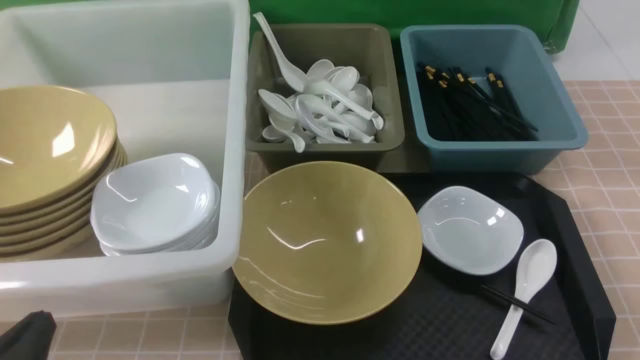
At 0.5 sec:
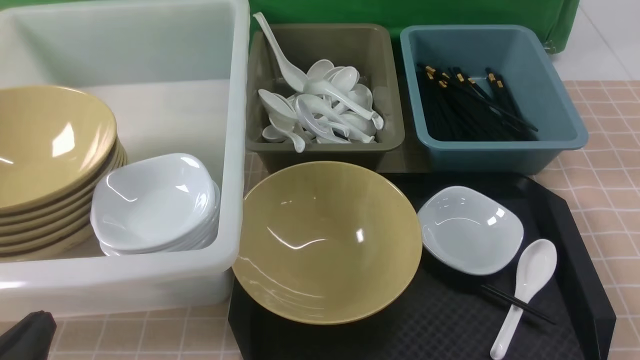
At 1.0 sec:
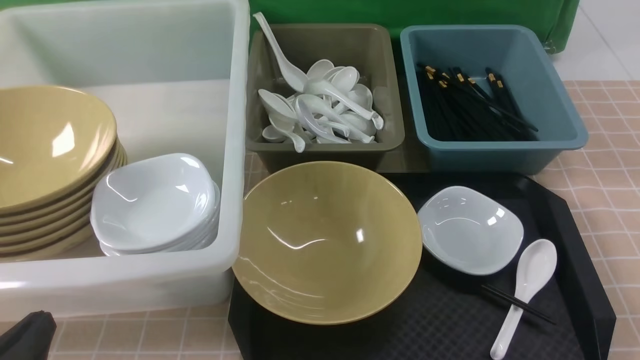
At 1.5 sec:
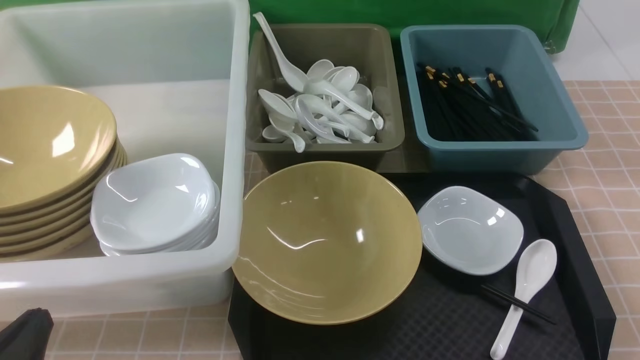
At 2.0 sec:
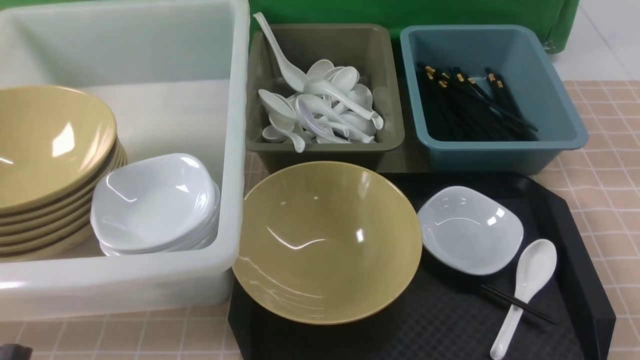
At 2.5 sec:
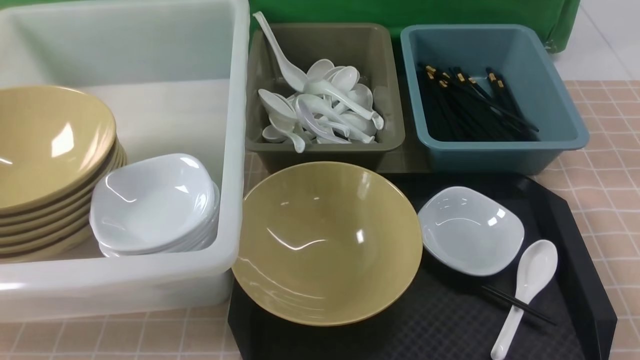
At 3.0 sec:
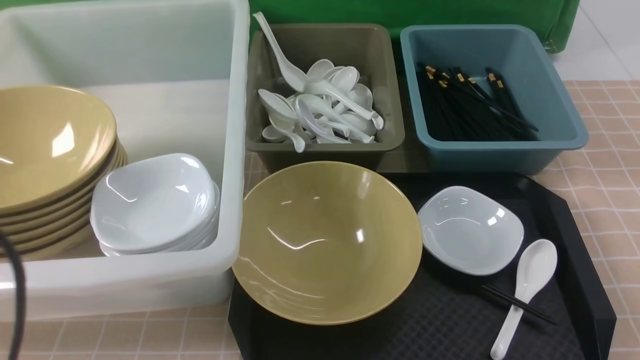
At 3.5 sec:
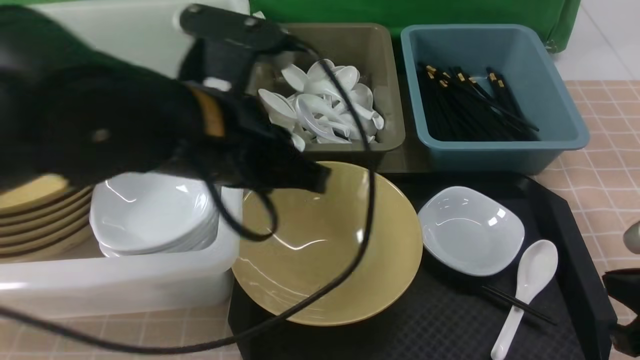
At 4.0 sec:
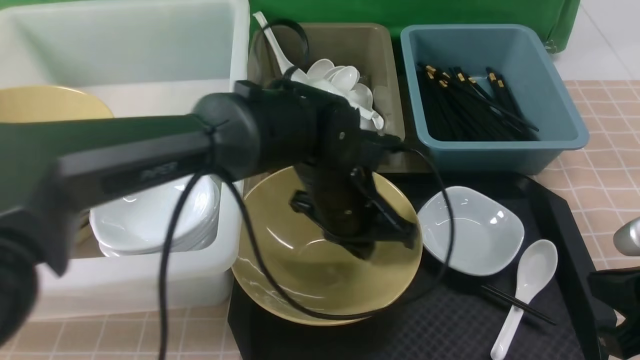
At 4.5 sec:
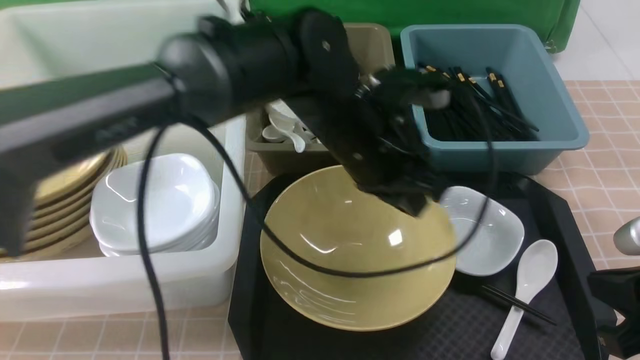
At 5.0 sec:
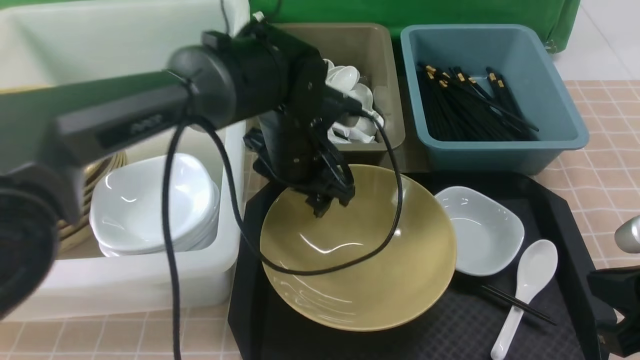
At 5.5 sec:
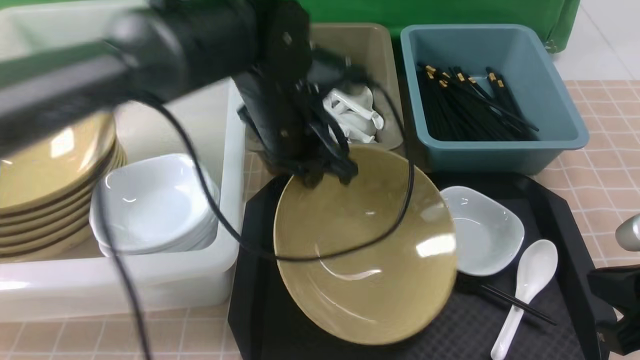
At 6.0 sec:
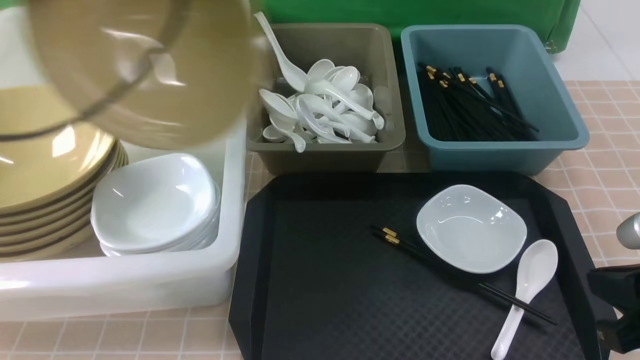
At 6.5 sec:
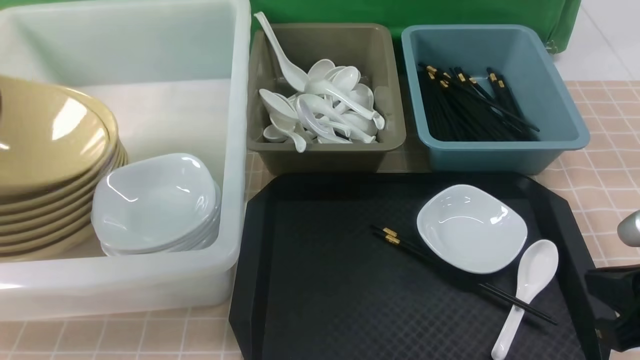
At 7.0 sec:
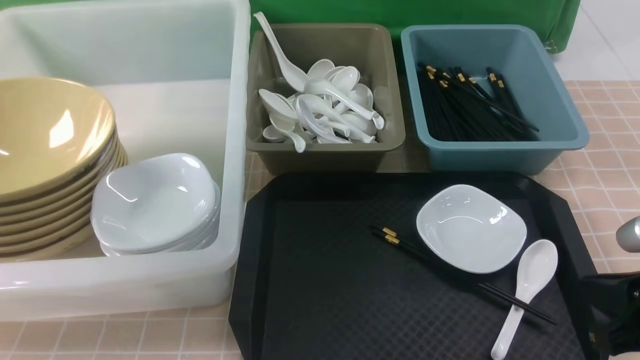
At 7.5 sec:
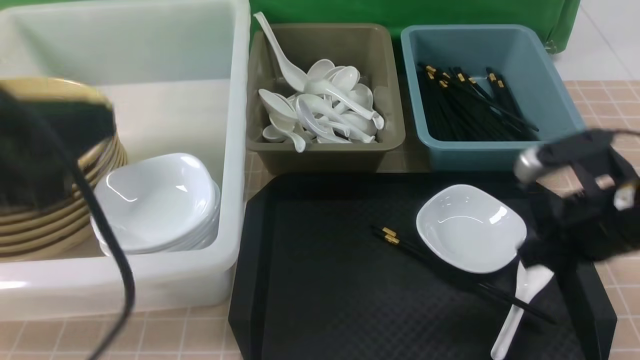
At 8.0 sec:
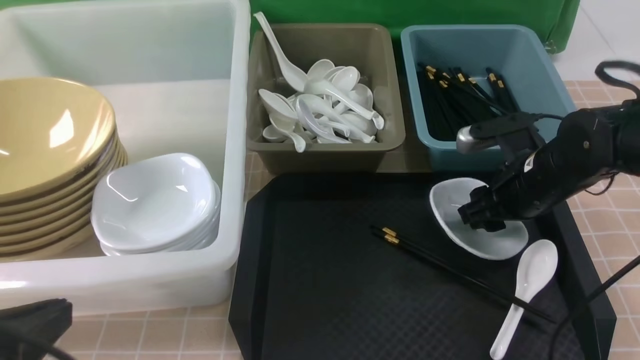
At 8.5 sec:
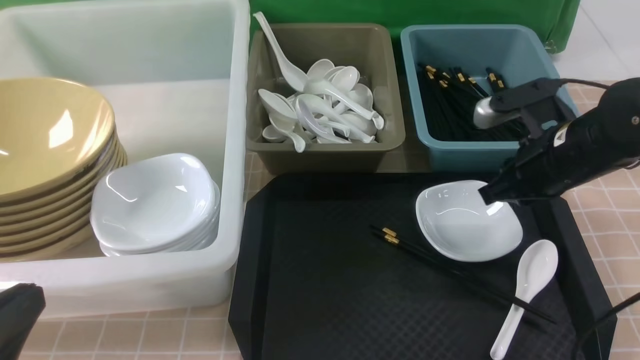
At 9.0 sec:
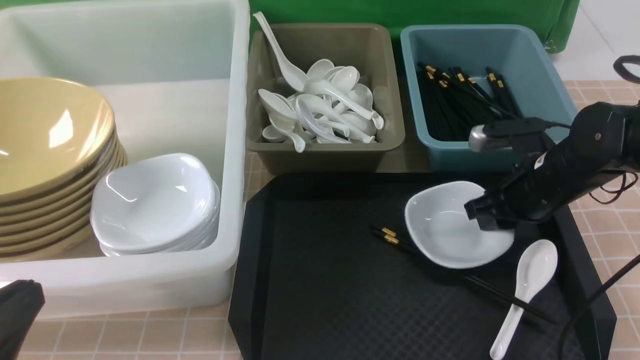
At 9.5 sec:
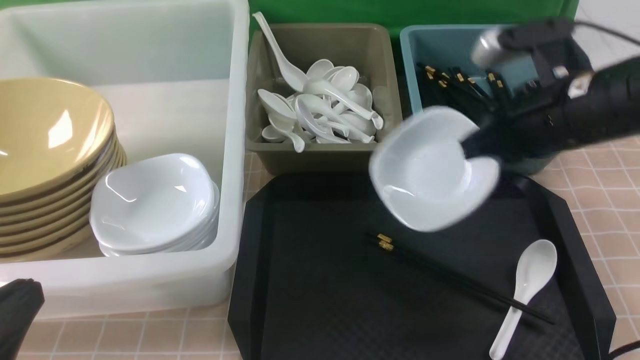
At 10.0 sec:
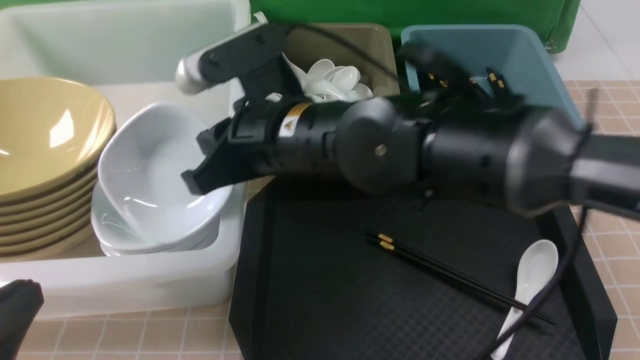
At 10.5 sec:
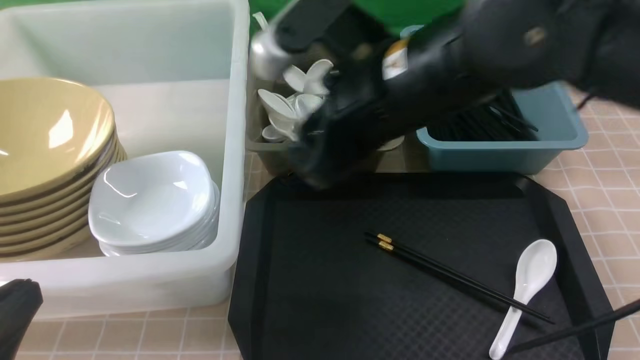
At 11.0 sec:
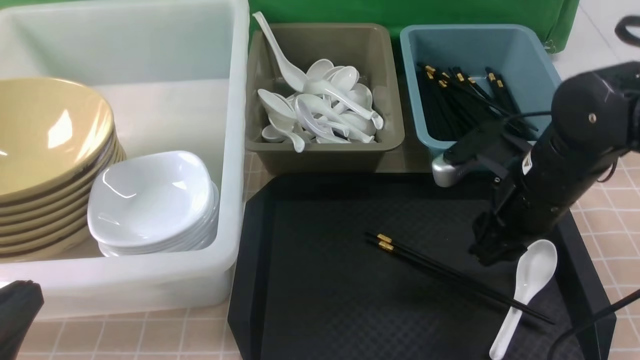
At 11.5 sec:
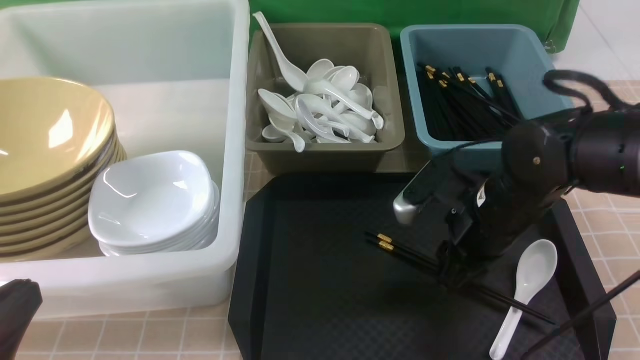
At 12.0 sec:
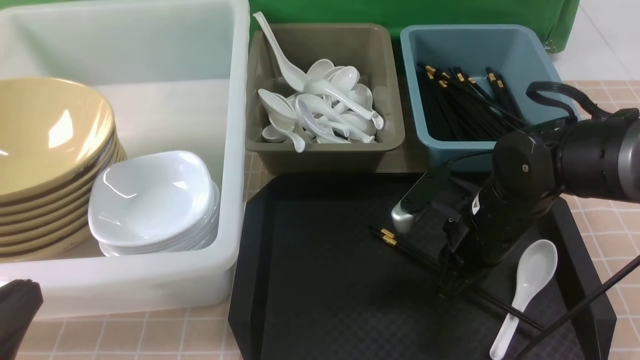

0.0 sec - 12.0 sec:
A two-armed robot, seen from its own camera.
Task of the whole recording: on brown table put chopsticks spoon bowls plates into blue grey white boxes.
Step, 0.0 sec - 5.0 sec: use the left arm to grab the yellow noodle bowl on the left.
Step, 5.5 sec - 6.5 sec: use the left arm to put the noodle bowl into the large storage box on the left.
Step, 7.0 sec - 9.0 sec: use the right arm to grab the plate.
Step, 9.5 sec - 10.0 sec: use the right arm to put the plate into the large storage box on the left.
2.0 sec - 4.0 sec: The left gripper travels to the right and forward by roughly 35 cm, while the right gripper goes some 10 cm forward, and closes its fingers.
4.0 sec - 6.0 sec: The left gripper heads to the left and upward, covering approximately 30 cm, and opens, then closes once more.
6.0 sec - 8.0 sec: The left gripper moves backward and downward, about 25 cm, and opens, then closes once more, while the right gripper moves forward, some 20 cm, and opens its fingers.
8.0 sec - 10.0 sec: The right gripper goes about 25 cm to the left and upward, and closes up.
10.0 sec - 12.0 sec: The right gripper goes about 20 cm to the right and downward, and opens and closes again.

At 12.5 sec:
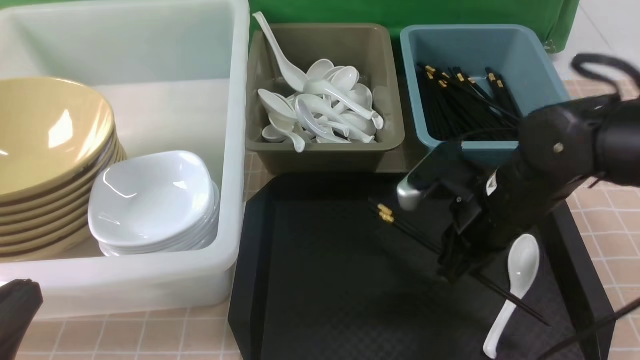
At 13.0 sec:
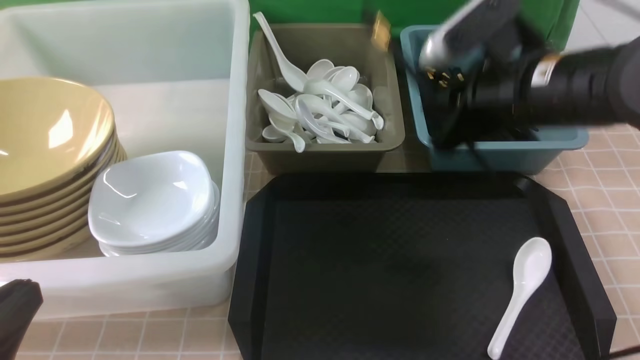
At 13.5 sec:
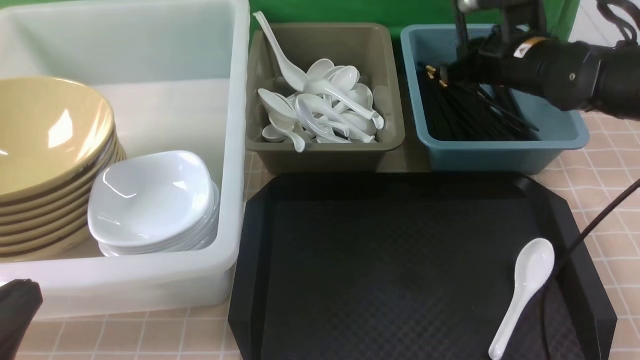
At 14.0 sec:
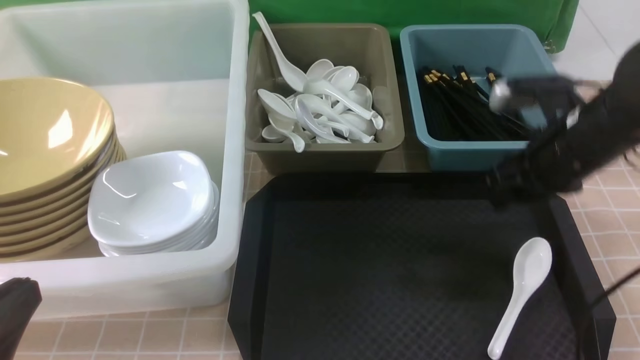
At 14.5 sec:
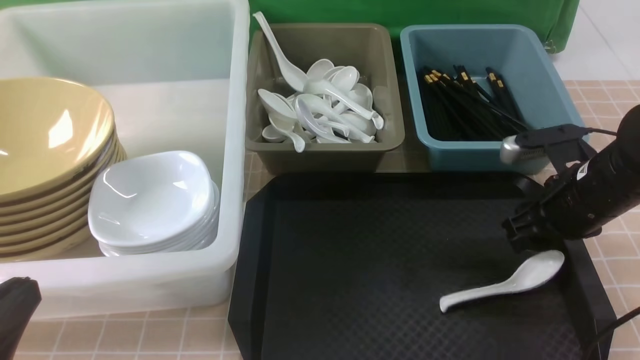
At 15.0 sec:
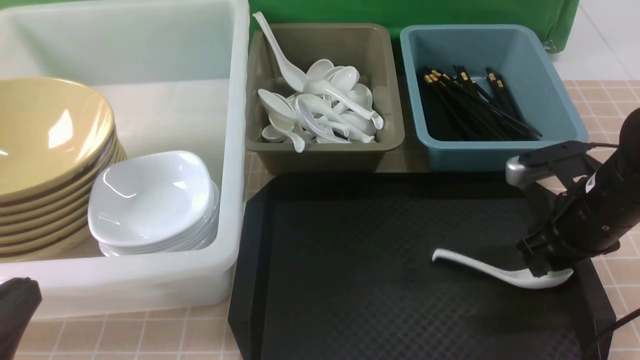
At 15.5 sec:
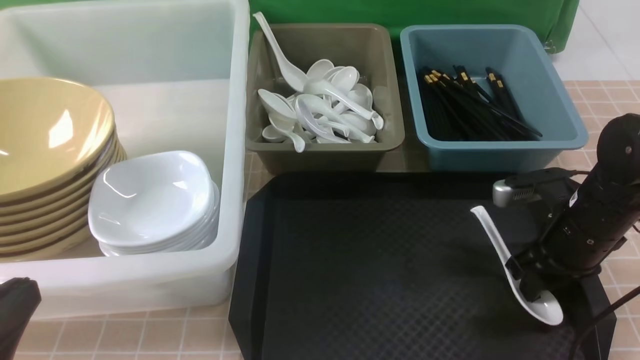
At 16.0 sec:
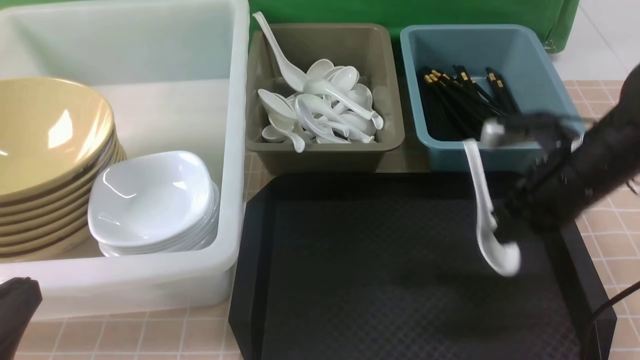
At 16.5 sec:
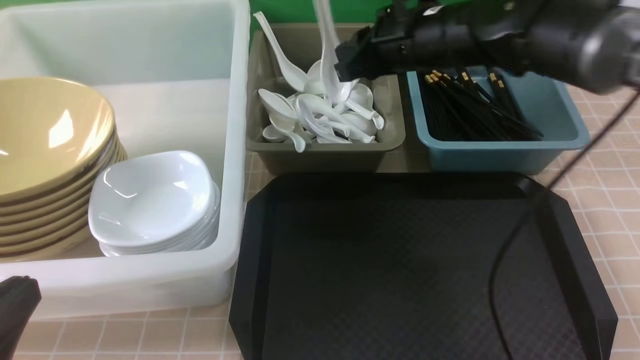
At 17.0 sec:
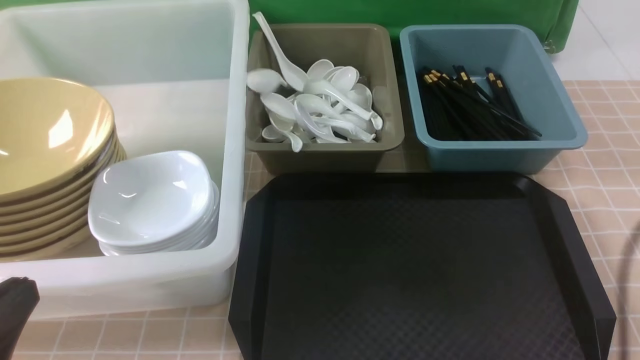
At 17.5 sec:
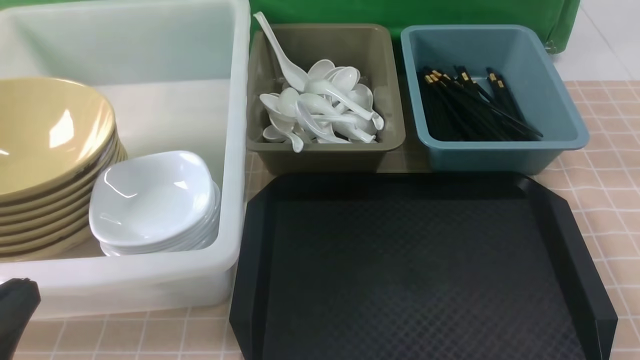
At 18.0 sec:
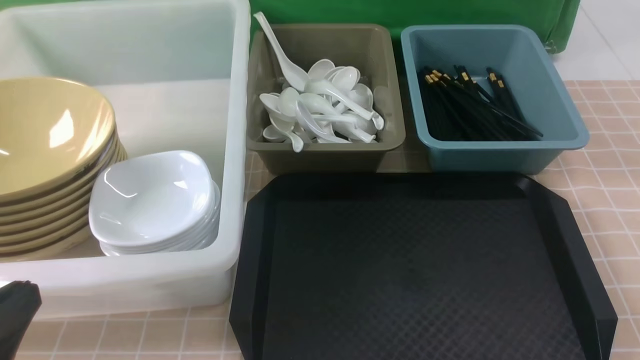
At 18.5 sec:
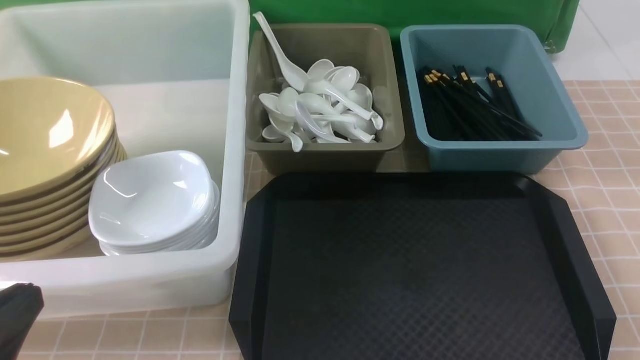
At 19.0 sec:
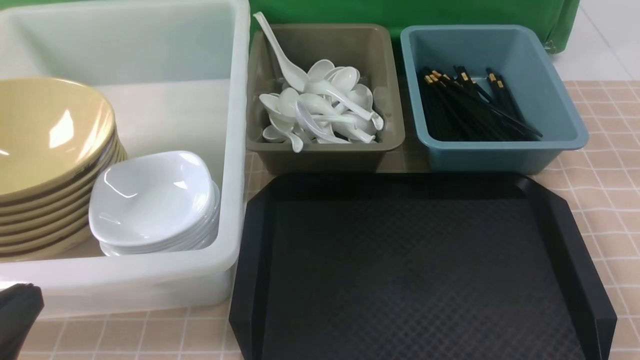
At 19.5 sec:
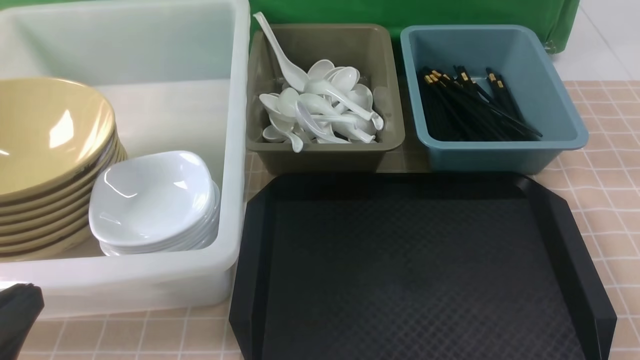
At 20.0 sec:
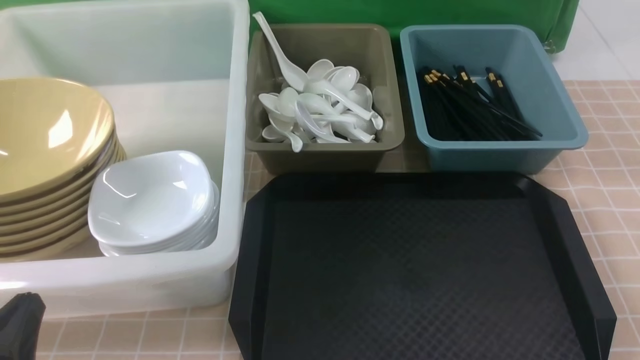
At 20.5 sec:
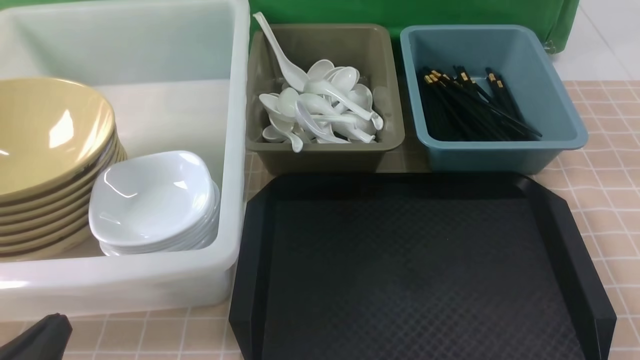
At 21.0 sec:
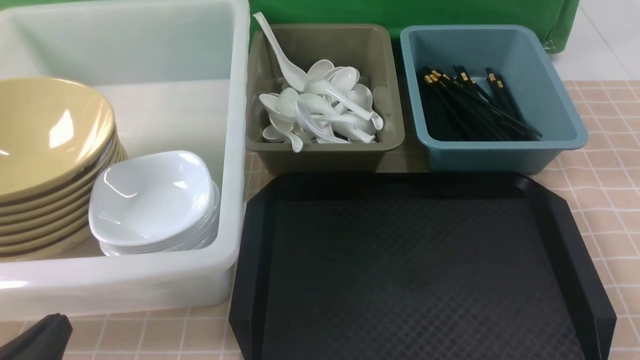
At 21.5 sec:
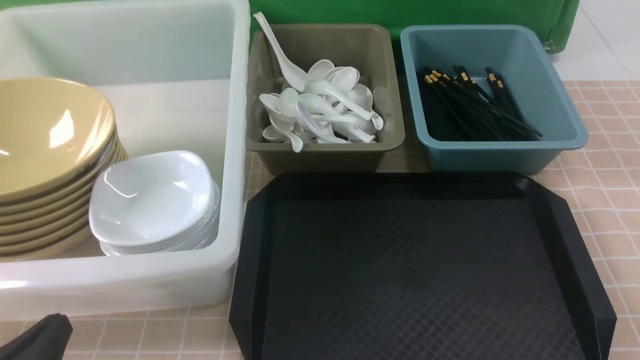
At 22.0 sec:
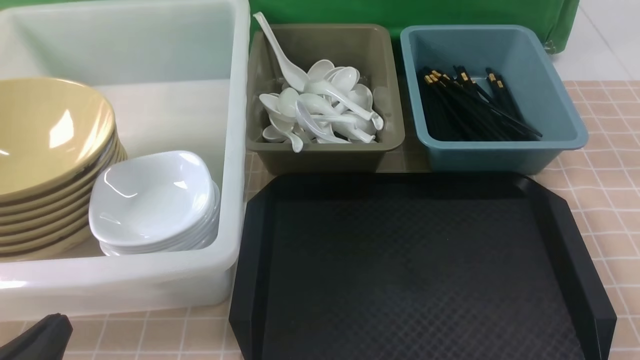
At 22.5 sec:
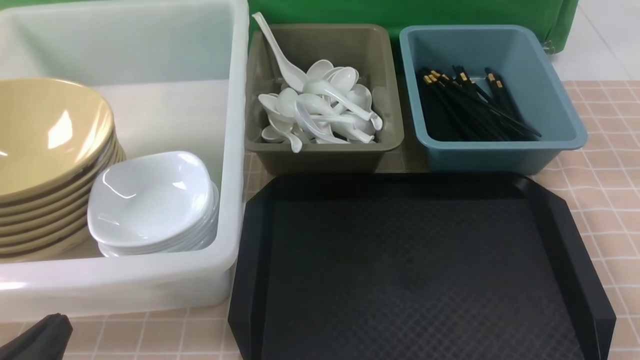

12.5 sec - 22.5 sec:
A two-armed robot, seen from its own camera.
Task of the whole recording: on brown table put chopsticks spoon bowls plates into blue grey white boxes.
Step, 12.5 sec - 13.5 sec: use the right arm to put the chopsticks into the small storage box on the right.
Step, 14.0 sec - 15.5 sec: use the right arm to grab the soup spoon in the middle.
Step, 16.0 sec - 16.5 sec: use the right arm to put the soup spoon into the small storage box in the middle.
12.5 sec - 14.5 sec: The right gripper travels to the right by roughly 10 cm, reaches approximately 15 cm forward, then returns, and opens.
14.5 sec - 16.5 sec: The right gripper travels to the left, upward and forward by roughly 20 cm, and closes up.
16.5 sec - 18.5 sec: The right gripper travels backward and to the right by some 40 cm, and closes its fingers.
18.5 sec - 20.5 sec: The left gripper goes roughly 10 cm downward.
20.5 sec - 22.5 sec: Neither gripper changes place.
